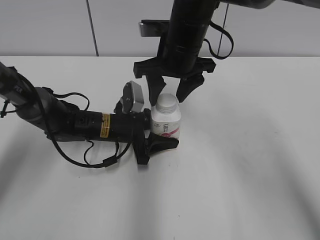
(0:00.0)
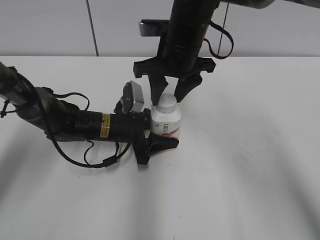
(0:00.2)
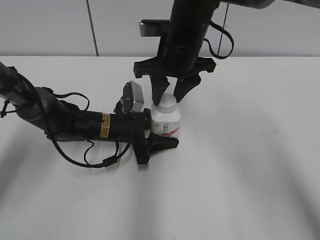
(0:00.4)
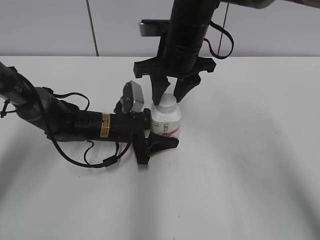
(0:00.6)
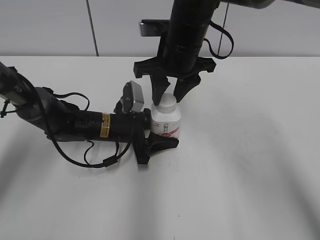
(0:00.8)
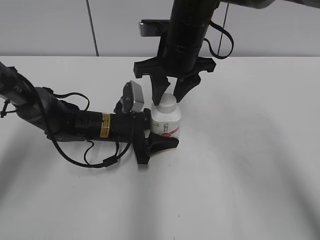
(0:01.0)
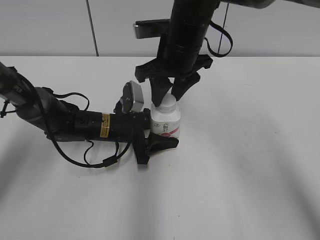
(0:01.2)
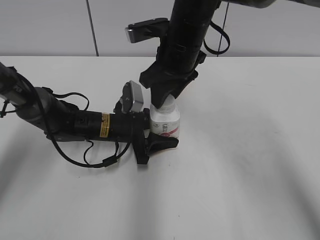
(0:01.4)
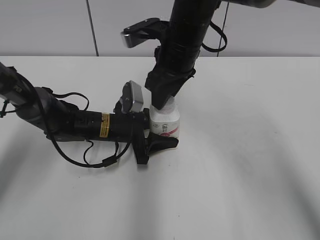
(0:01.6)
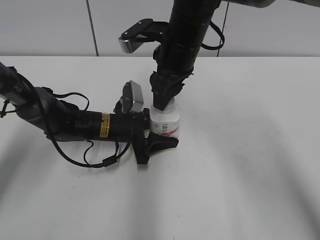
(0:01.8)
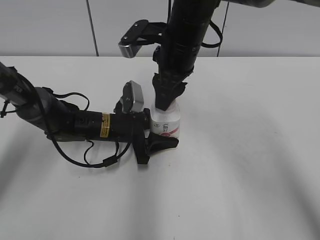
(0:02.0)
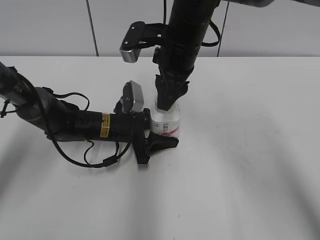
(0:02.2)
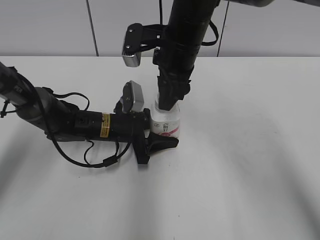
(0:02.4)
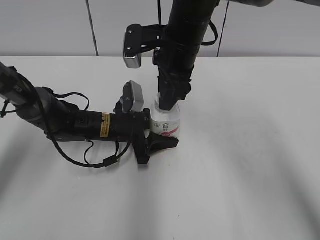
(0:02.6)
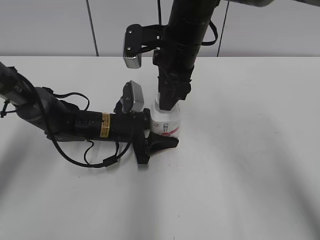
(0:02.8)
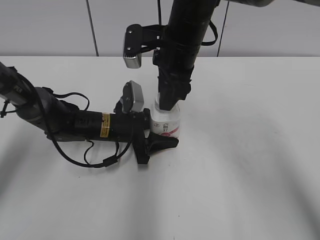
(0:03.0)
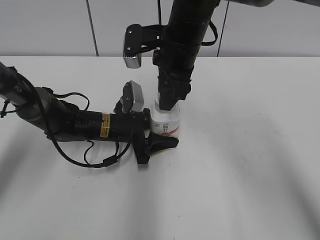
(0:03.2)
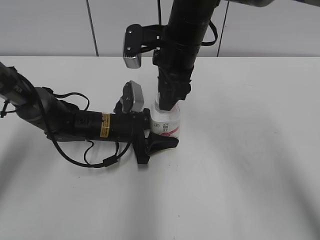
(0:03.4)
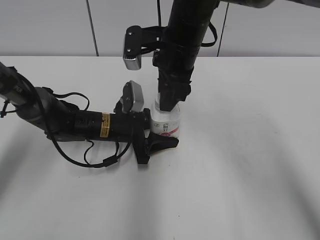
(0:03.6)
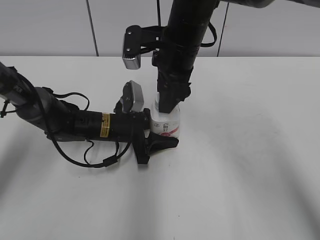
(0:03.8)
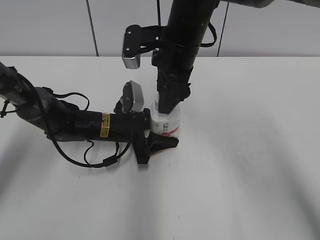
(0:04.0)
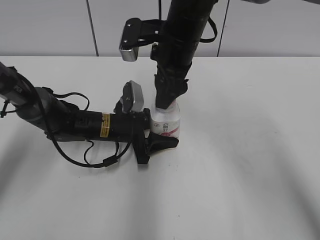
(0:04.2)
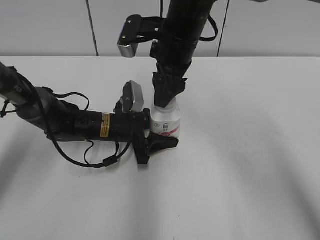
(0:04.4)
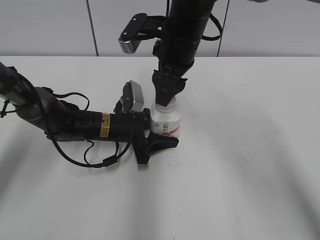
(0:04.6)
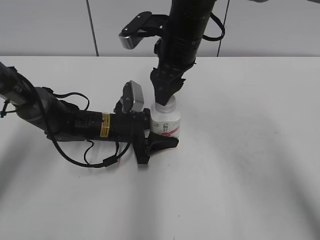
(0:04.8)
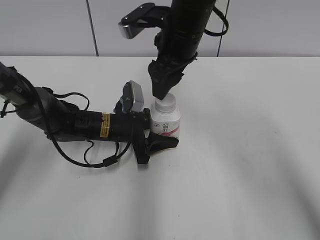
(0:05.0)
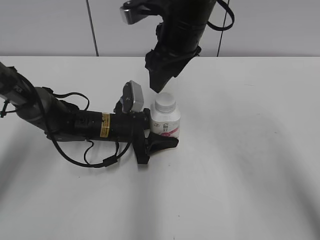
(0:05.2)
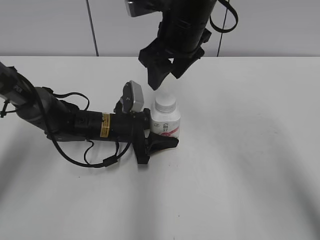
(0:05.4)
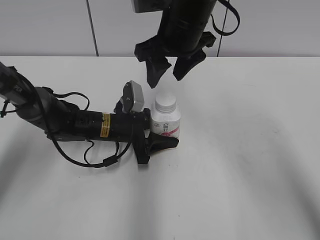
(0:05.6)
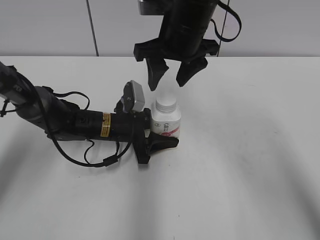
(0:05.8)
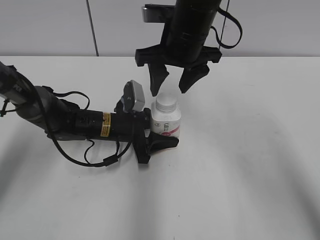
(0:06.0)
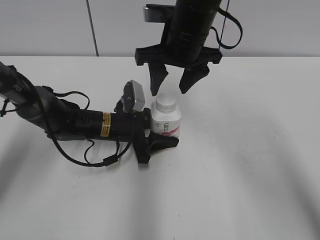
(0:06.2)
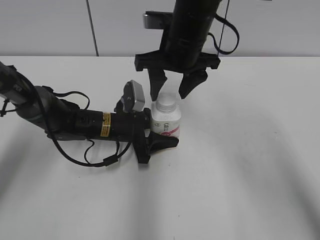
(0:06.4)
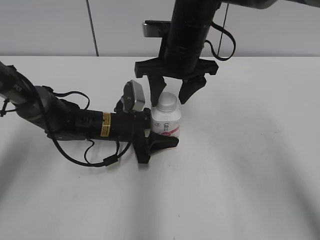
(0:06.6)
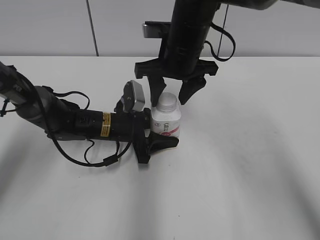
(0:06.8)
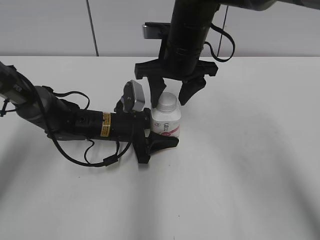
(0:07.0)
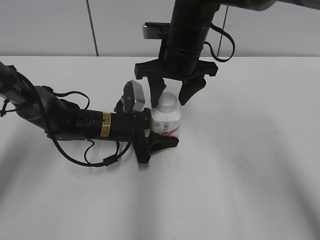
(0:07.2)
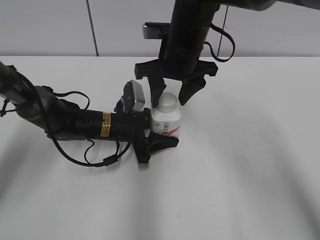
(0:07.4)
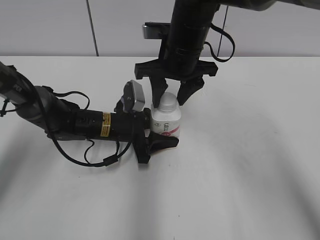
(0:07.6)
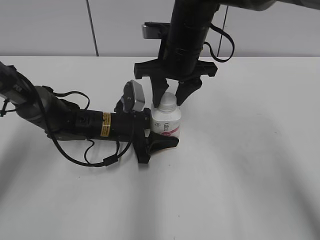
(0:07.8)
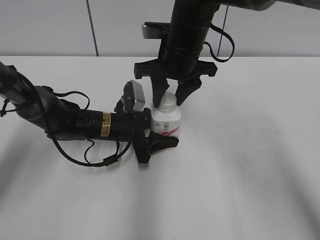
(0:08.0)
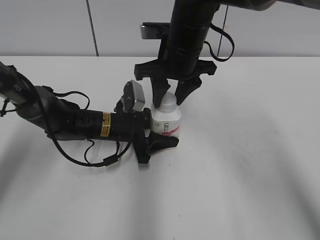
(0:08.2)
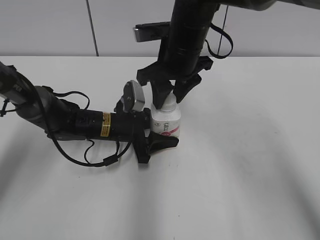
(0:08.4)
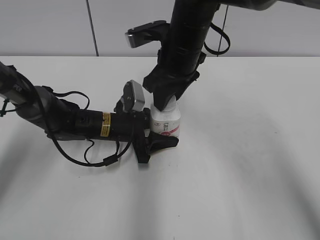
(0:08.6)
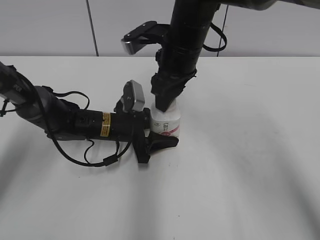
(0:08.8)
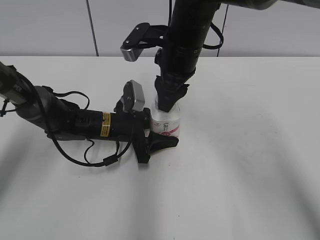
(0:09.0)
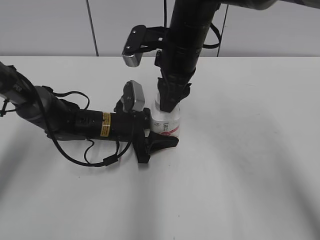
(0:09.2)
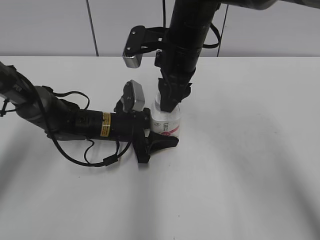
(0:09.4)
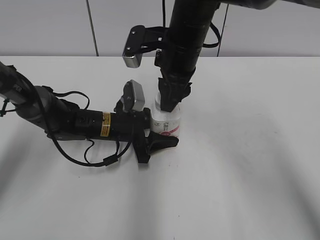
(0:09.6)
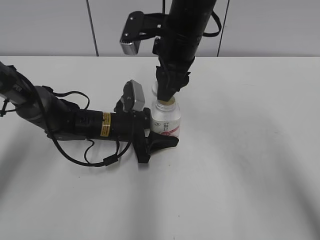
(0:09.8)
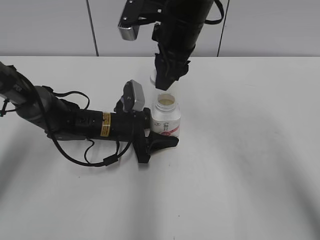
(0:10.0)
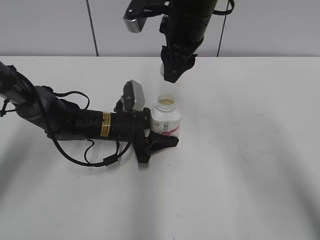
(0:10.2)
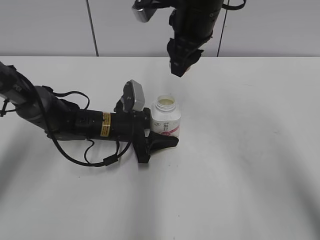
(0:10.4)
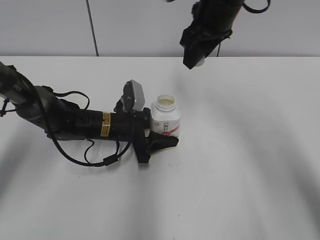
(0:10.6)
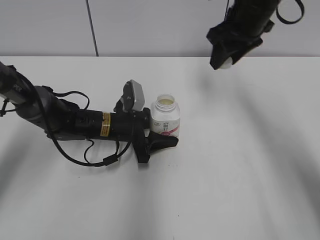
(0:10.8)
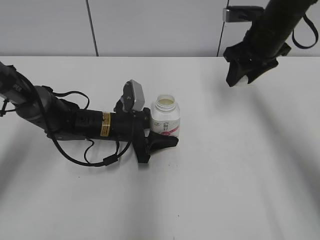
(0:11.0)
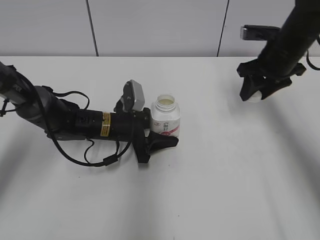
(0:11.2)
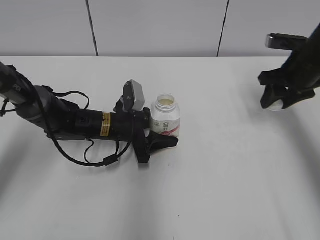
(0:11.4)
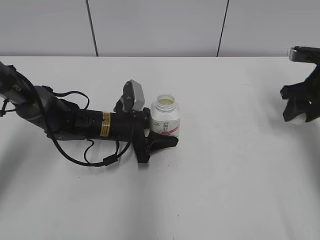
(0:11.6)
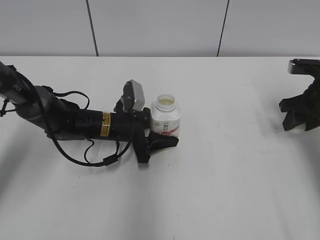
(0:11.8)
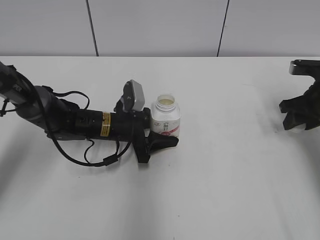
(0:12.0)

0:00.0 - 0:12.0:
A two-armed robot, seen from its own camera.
Step, 0:00.0 - 0:09.8: Unscrew the bottle cap with the right gripper while holding the bottle with the left gripper.
0:00.0 - 0:01.6: The right gripper closes.
0:03.0 - 0:04.4: The right gripper opens up.
0:06.0 - 0:07.6: There are only small adjustments of the grippers.
0:07.6 - 0:09.0: The right gripper closes.
0:09.0 - 0:10.4: The right gripper travels upward by roughly 5 cm.
0:10.4 - 0:12.0: The right gripper moves to the right and downward, some 30 cm.

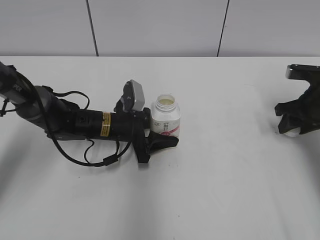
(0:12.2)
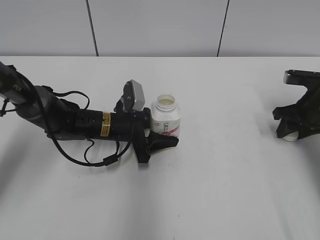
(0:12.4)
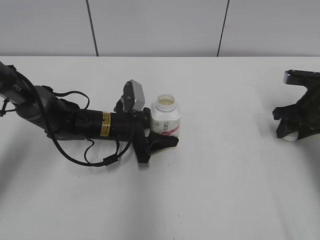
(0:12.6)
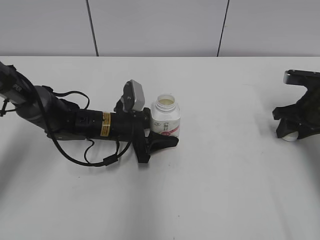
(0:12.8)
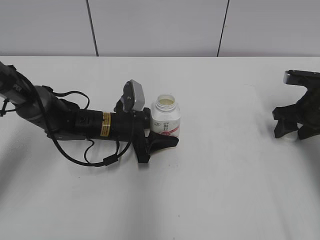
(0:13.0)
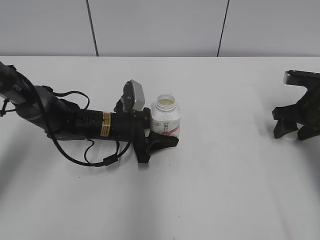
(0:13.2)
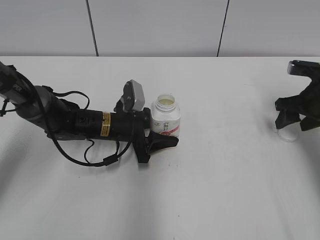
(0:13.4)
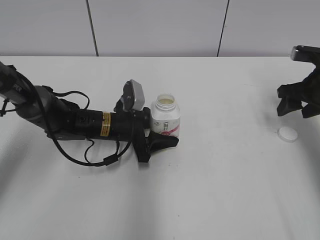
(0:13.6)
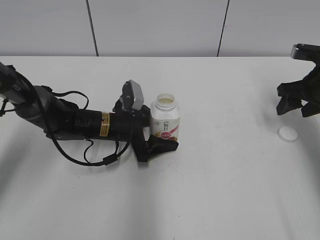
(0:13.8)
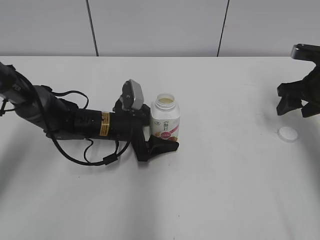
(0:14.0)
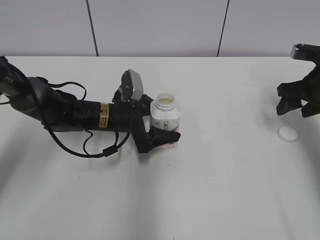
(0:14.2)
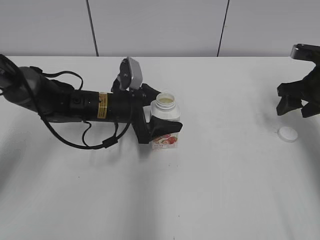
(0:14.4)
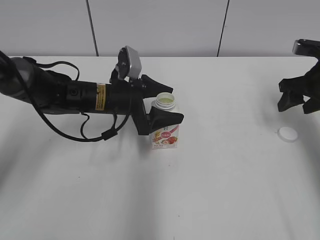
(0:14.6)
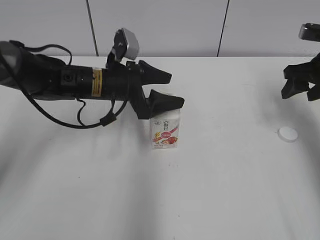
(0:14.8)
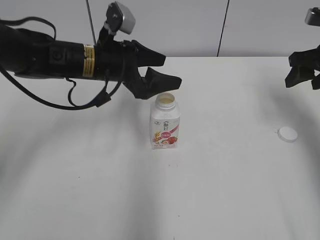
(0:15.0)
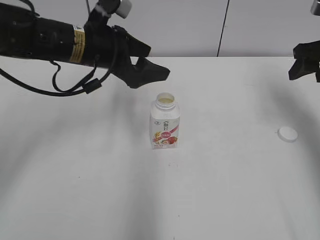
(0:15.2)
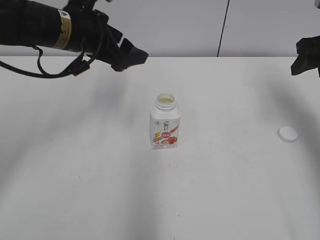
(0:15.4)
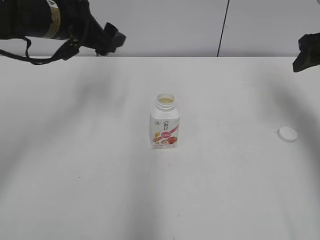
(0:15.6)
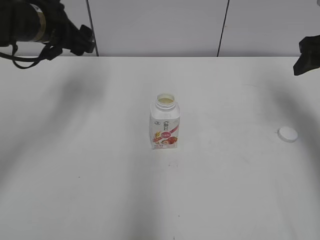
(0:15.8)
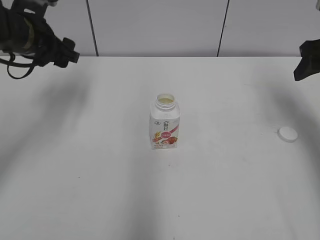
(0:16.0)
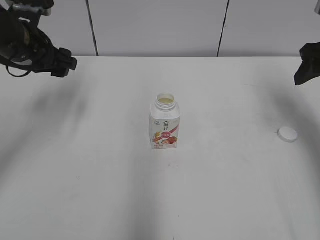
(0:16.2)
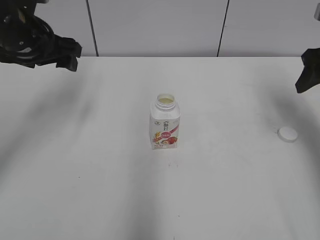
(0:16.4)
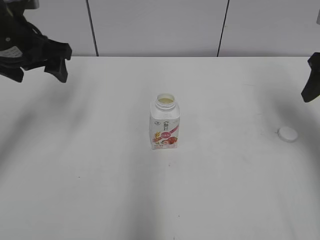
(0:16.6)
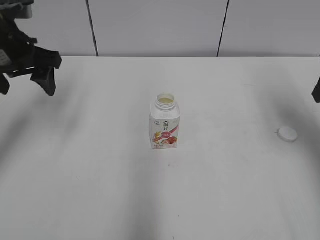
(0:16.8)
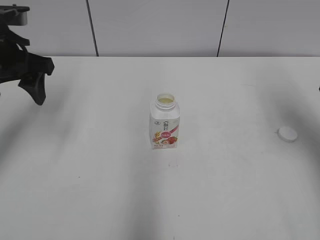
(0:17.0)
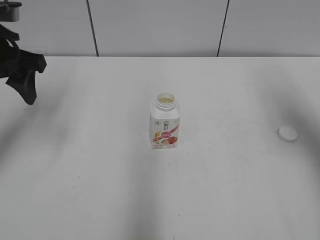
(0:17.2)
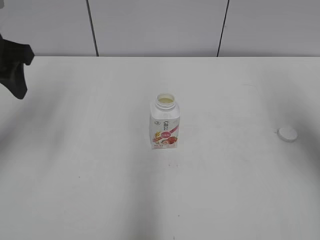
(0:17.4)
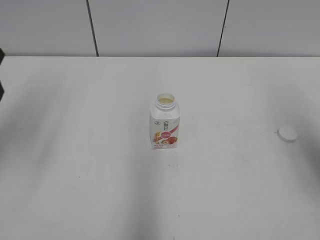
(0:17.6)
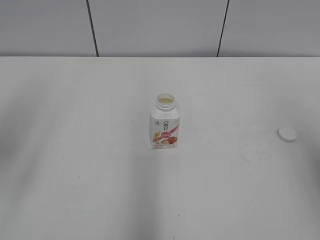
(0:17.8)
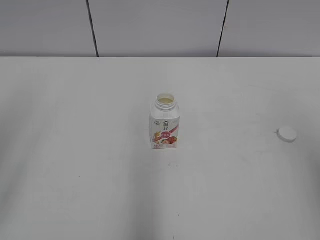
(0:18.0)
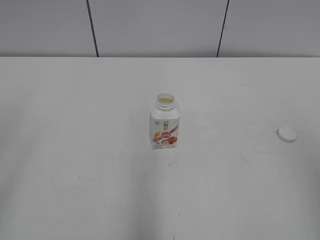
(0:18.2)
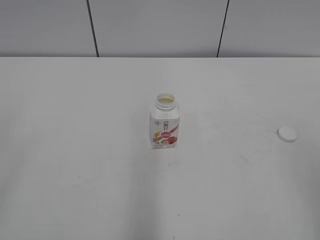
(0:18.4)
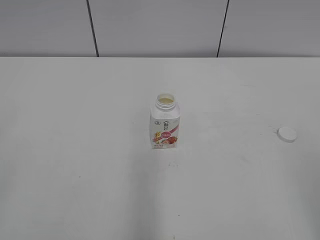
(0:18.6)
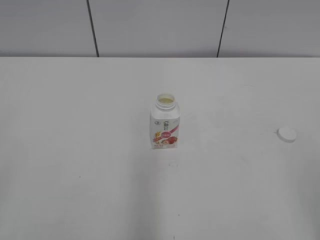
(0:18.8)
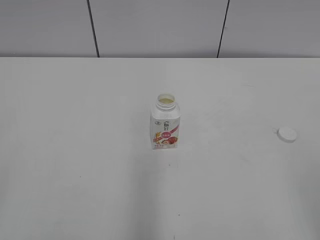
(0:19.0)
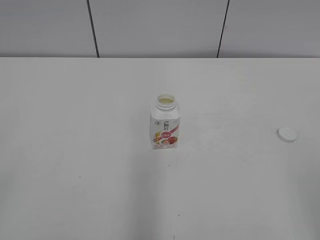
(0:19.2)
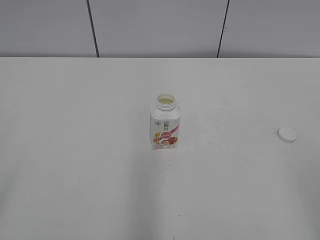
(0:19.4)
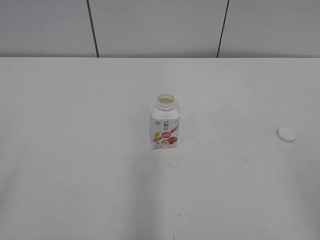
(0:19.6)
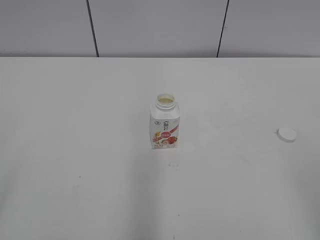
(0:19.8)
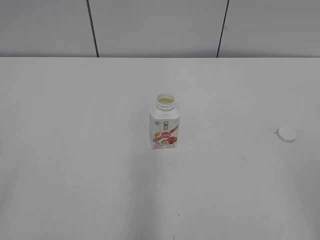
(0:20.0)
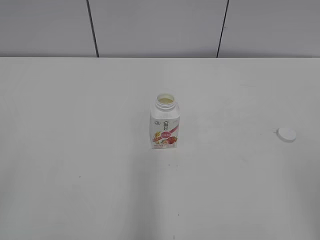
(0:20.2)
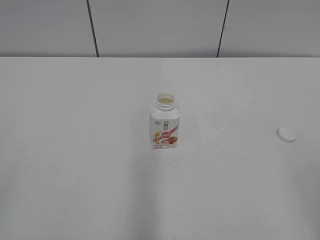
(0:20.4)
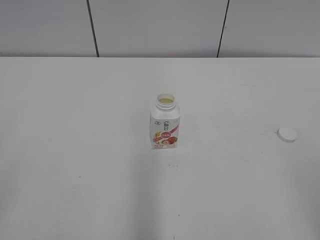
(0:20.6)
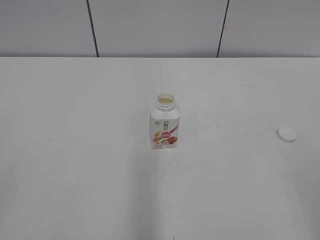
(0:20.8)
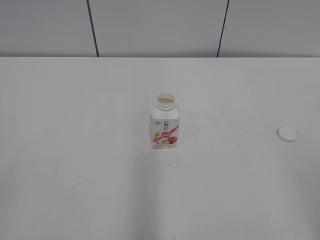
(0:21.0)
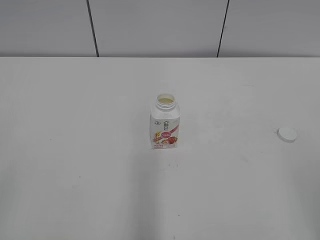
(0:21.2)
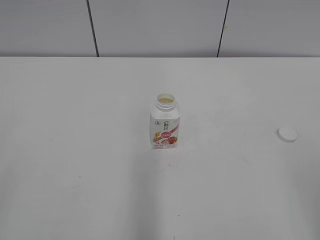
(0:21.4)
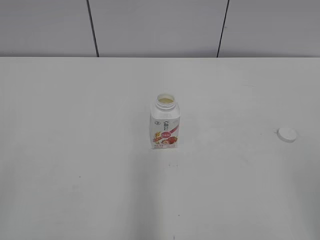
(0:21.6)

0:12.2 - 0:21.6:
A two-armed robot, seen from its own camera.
Step, 0:13.2 - 0:14.2: Place the bottle on the table with the left gripper.
0:12.2 - 0:13.8: The right gripper opens.
0:13.8 - 0:15.4: The right gripper goes roughly 10 cm upward, while the left gripper shifts approximately 20 cm upward.
0:15.4 - 0:17.0: The left gripper heads to the left, covering approximately 10 cm. The right gripper shifts roughly 5 cm backward.
0:17.0 - 0:18.4: Both grippers travel together backward, roughly 30 cm.

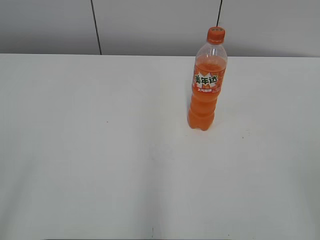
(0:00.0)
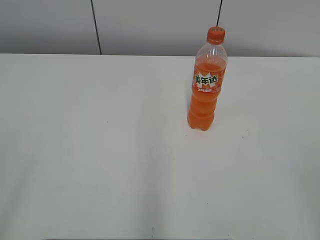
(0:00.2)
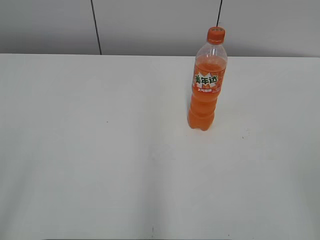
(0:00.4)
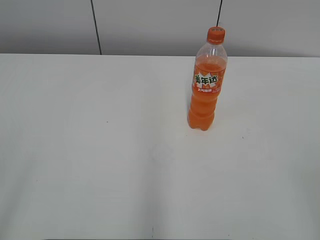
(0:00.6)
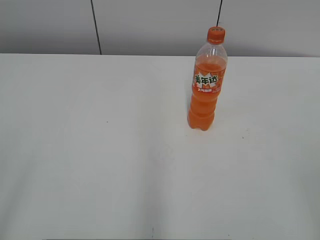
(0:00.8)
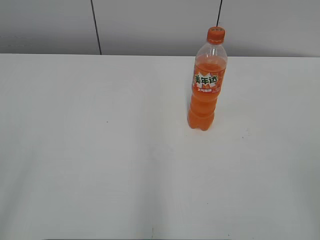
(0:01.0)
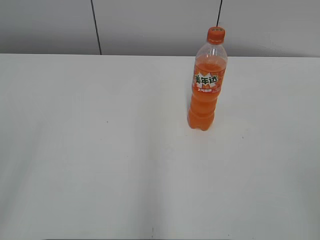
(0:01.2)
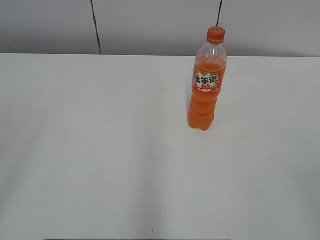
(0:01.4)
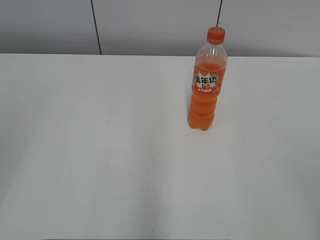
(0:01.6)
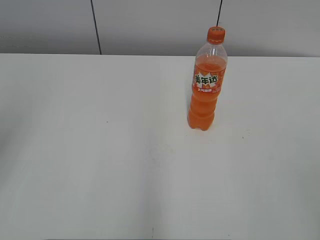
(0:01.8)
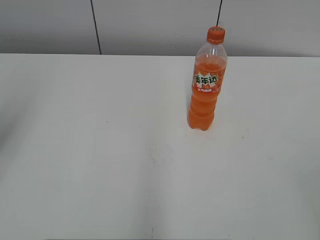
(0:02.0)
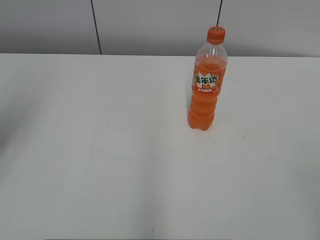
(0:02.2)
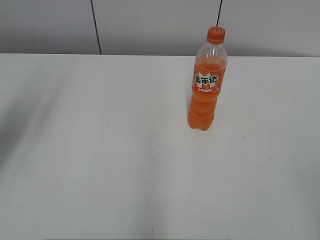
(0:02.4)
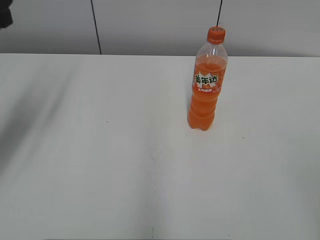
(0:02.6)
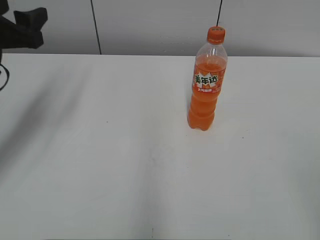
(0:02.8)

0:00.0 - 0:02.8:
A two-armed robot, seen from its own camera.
0:01.4 - 0:02.8: The left gripper travels forward by approximately 25 cm.
